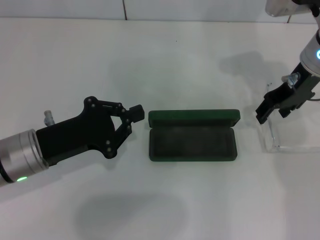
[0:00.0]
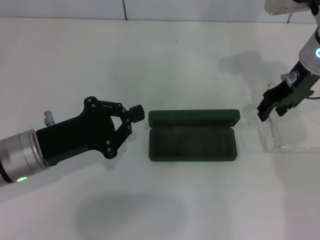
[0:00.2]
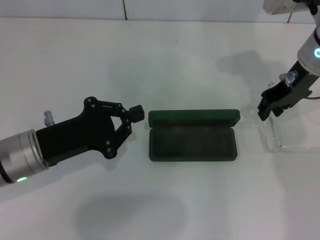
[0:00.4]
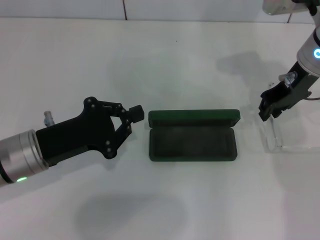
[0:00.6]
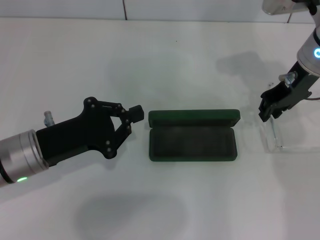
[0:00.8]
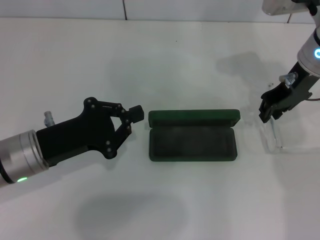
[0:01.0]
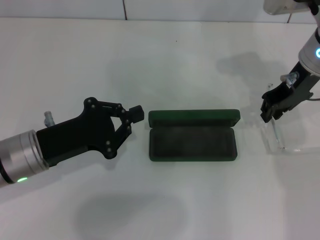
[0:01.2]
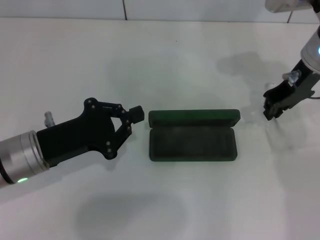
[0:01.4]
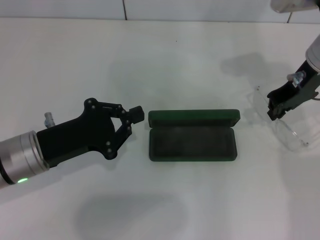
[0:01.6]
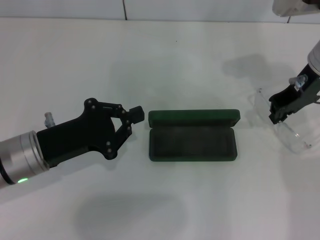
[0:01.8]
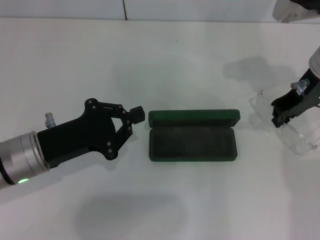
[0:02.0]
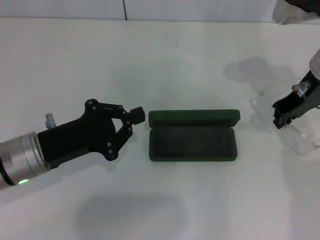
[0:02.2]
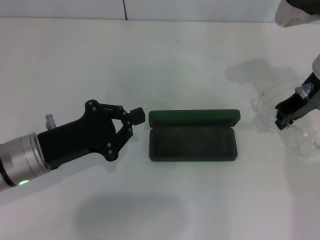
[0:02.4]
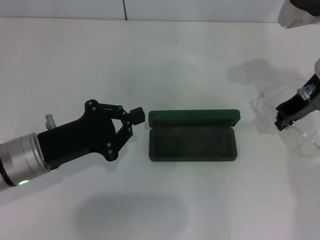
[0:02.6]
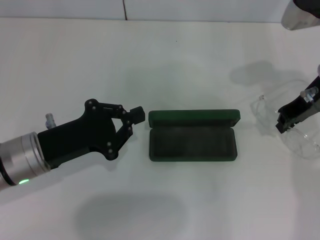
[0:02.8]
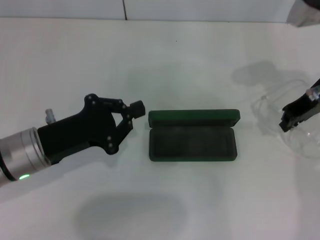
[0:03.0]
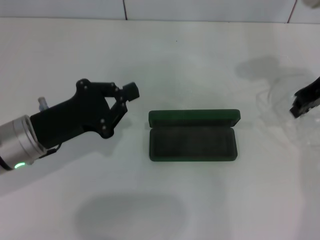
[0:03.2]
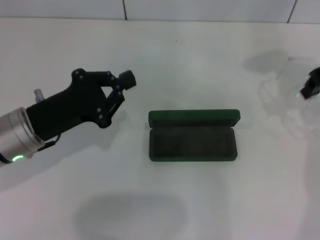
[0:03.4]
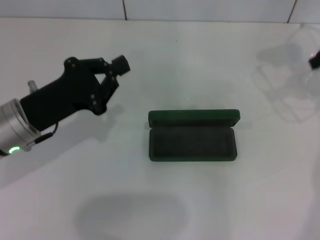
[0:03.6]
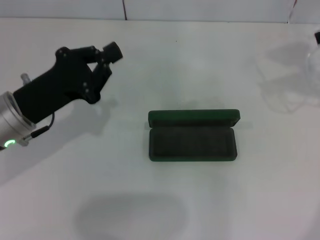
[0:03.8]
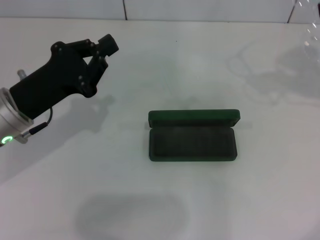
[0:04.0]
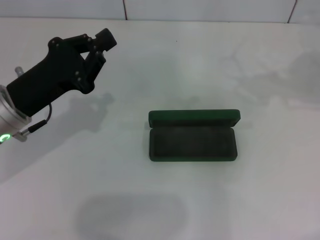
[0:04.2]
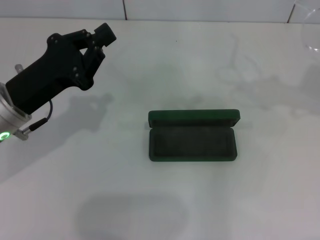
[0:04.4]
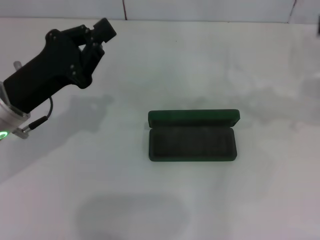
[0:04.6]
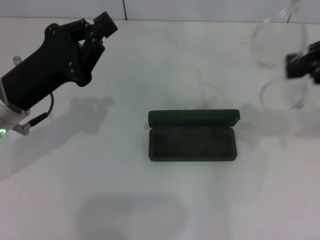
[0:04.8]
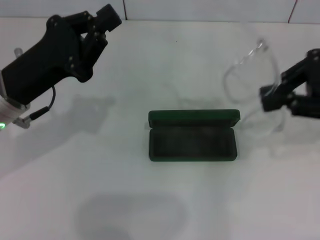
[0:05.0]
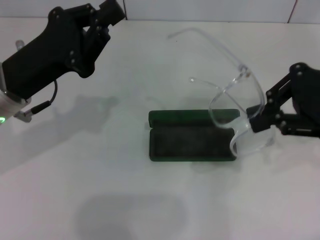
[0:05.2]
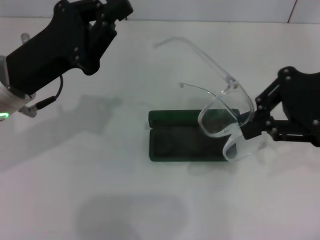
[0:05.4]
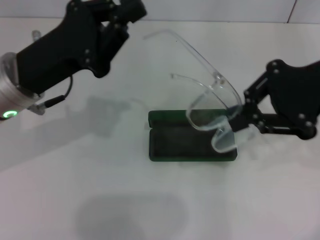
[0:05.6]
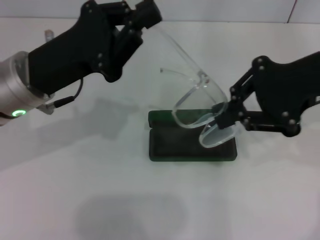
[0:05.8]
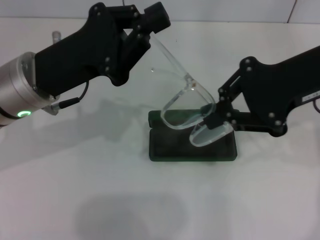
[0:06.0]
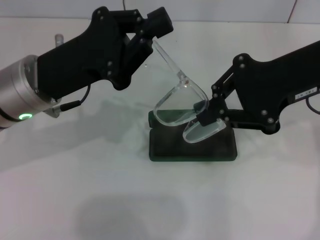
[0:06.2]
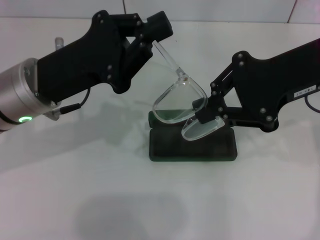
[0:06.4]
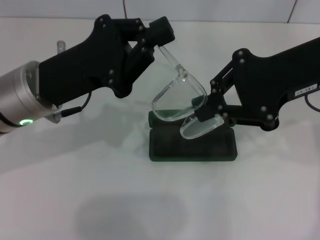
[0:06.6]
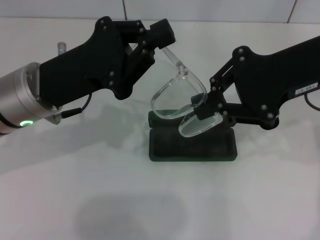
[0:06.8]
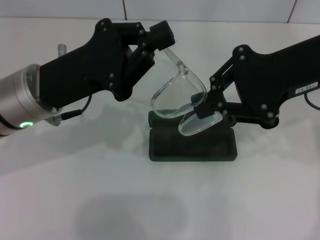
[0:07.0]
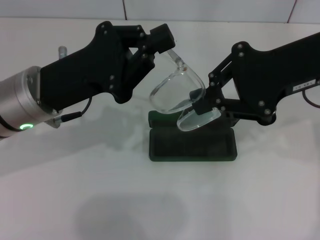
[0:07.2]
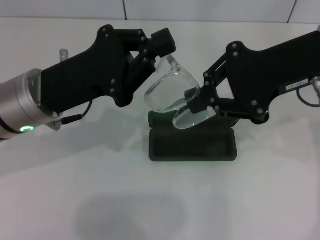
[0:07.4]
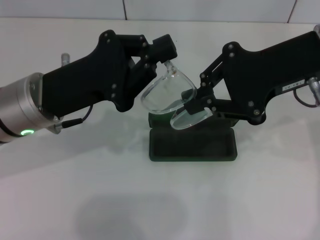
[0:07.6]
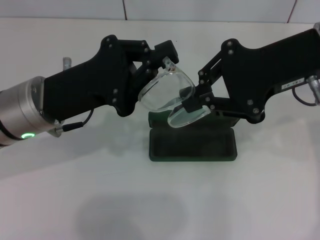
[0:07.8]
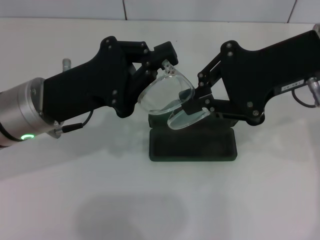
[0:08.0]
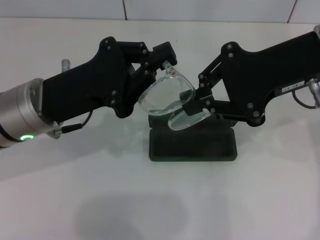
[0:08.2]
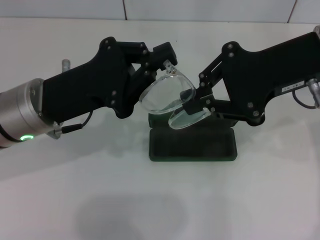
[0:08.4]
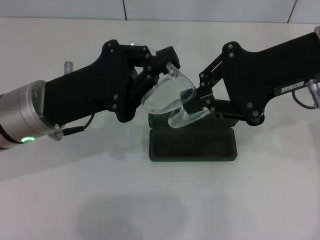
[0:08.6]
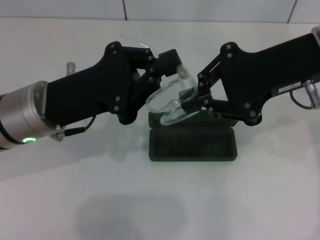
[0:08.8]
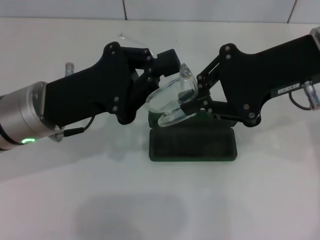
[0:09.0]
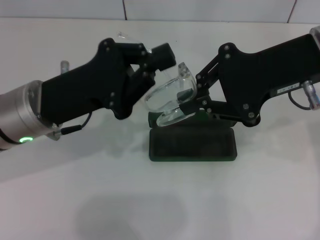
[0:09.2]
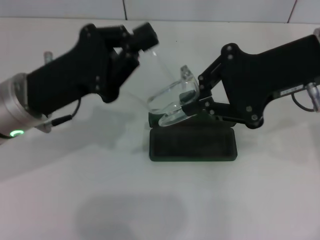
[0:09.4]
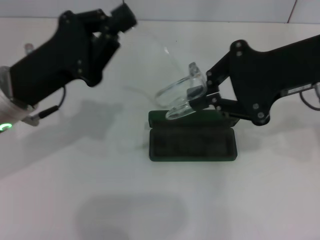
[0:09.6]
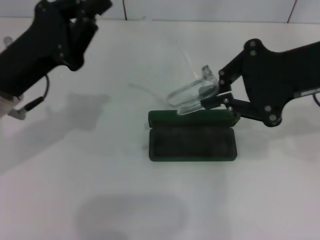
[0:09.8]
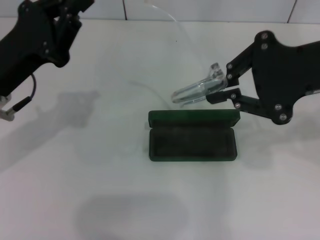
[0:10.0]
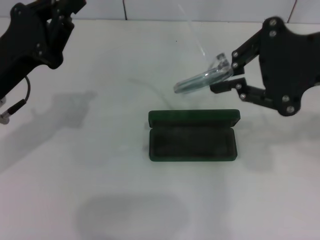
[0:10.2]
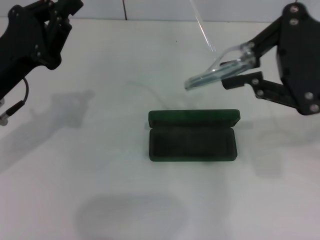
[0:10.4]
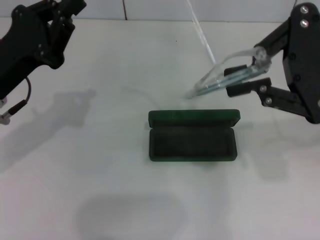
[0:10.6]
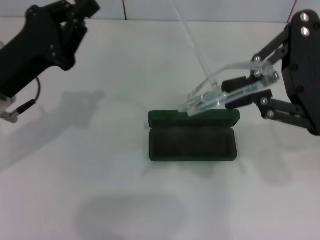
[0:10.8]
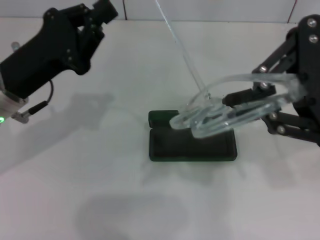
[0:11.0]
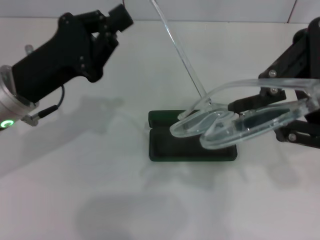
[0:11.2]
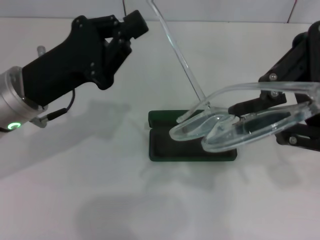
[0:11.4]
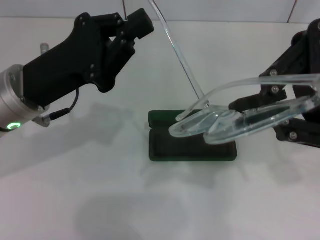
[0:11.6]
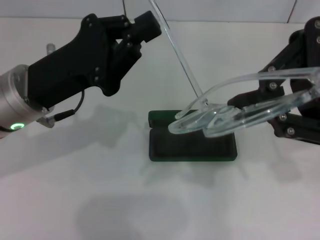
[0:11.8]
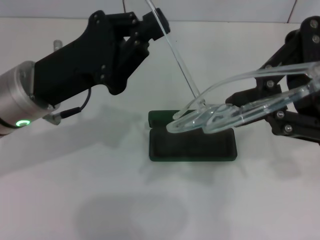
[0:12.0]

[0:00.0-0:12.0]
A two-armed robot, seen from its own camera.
0:00.0 to 0:01.6: The right gripper closes up.
0:01.6 to 0:03.0: The grippers stay close to where they were, moving slightly.
0:03.0 to 0:04.4: The right gripper is displaced to the right, upward and backward by about 15 cm.
0:04.4 to 0:06.0: The right gripper is displaced to the left by approximately 15 cm. The left gripper changes place by about 5 cm.
0:07.6 to 0:09.0: Neither gripper changes place.
0:09.0 to 0:10.4: The left gripper is displaced to the left by approximately 5 cm, while the right gripper heads upward and backward, covering some 5 cm.
0:10.4 to 0:12.0: The left gripper is displaced to the right by approximately 5 cm.

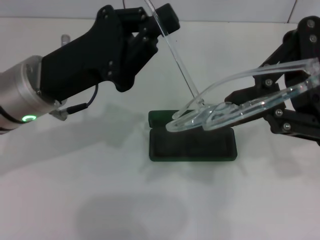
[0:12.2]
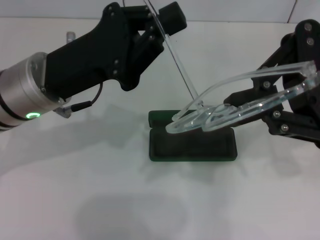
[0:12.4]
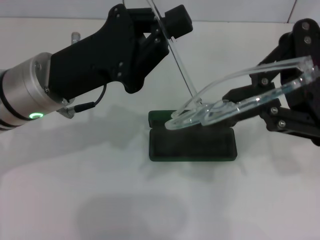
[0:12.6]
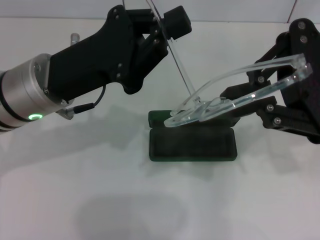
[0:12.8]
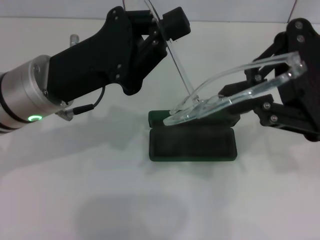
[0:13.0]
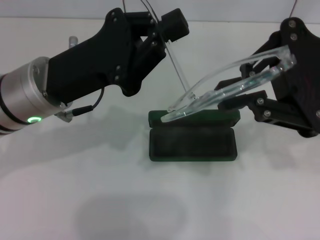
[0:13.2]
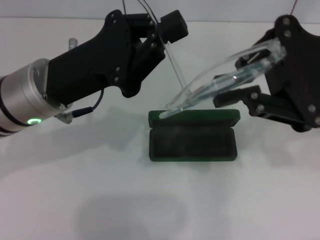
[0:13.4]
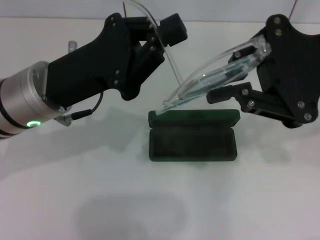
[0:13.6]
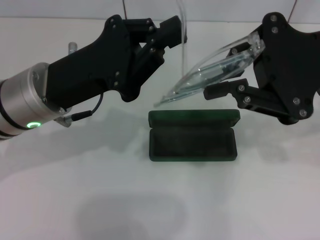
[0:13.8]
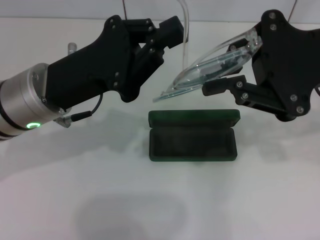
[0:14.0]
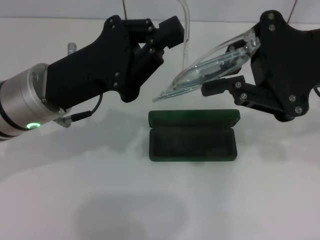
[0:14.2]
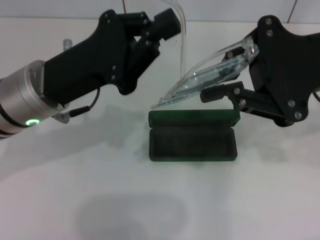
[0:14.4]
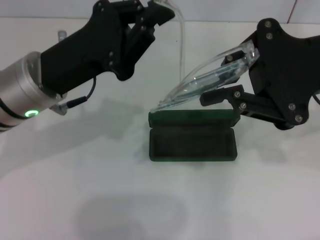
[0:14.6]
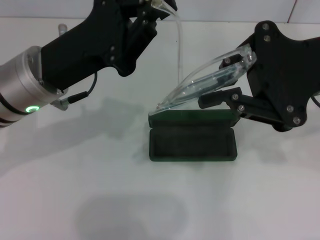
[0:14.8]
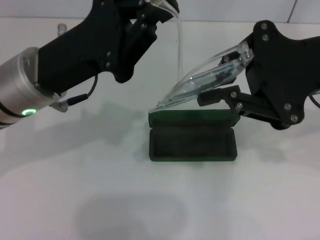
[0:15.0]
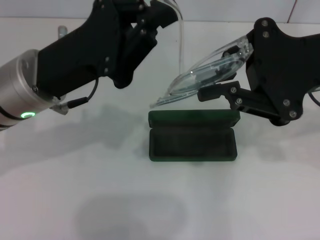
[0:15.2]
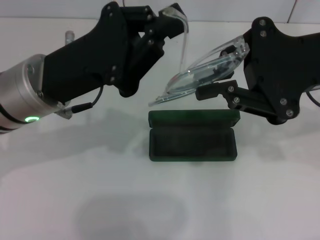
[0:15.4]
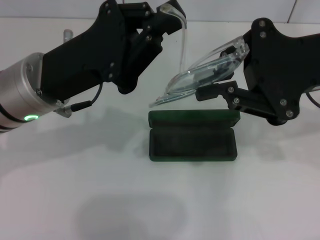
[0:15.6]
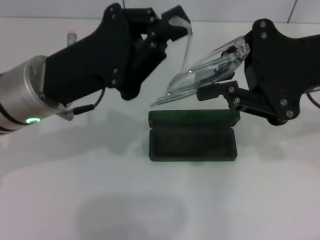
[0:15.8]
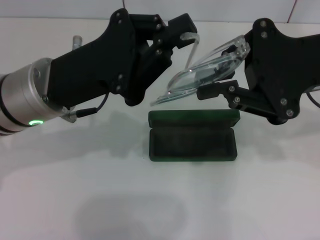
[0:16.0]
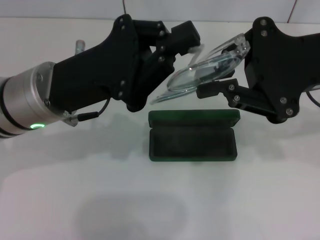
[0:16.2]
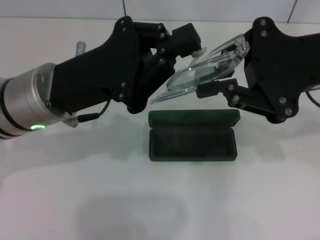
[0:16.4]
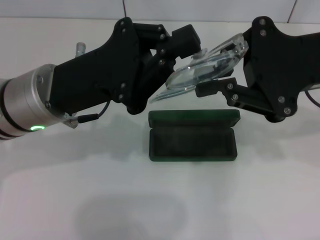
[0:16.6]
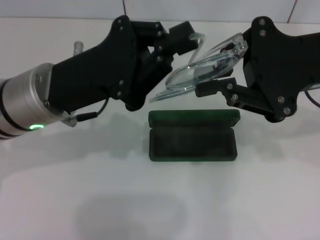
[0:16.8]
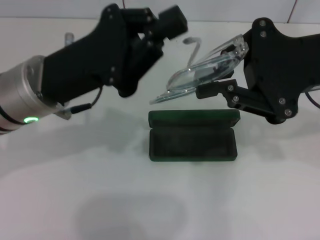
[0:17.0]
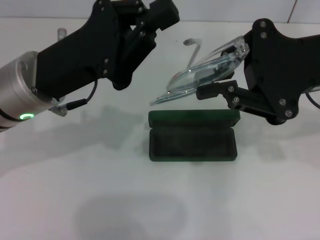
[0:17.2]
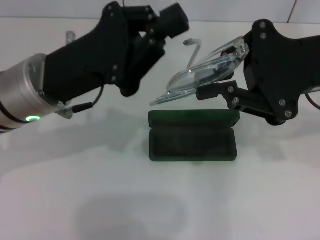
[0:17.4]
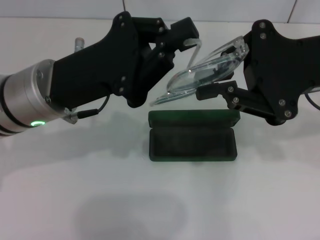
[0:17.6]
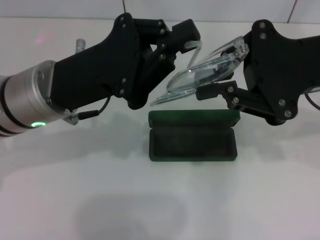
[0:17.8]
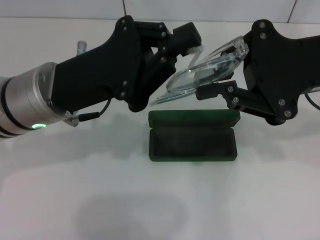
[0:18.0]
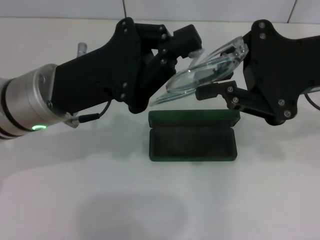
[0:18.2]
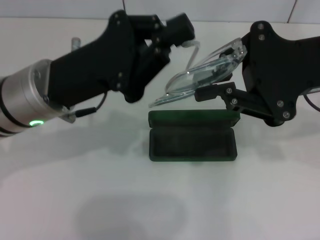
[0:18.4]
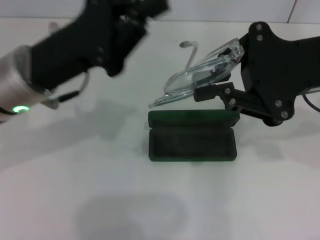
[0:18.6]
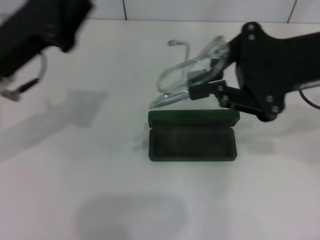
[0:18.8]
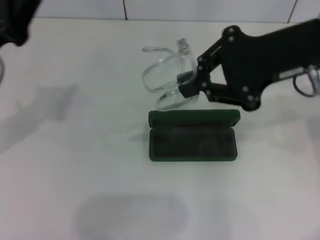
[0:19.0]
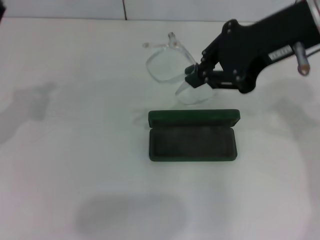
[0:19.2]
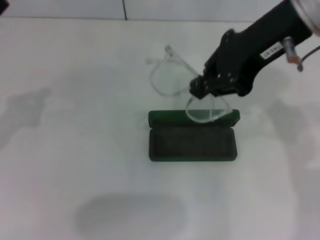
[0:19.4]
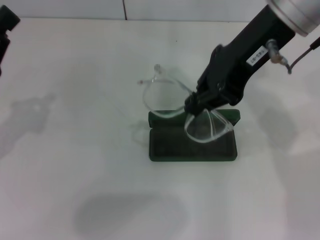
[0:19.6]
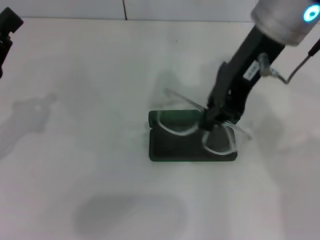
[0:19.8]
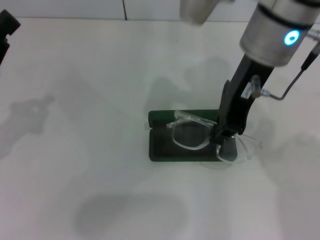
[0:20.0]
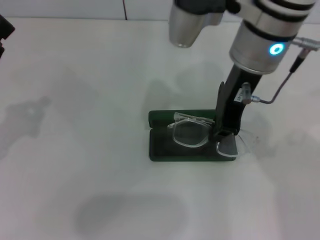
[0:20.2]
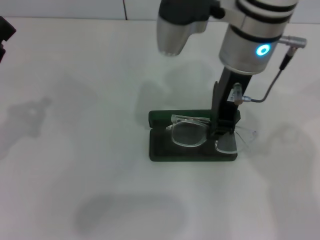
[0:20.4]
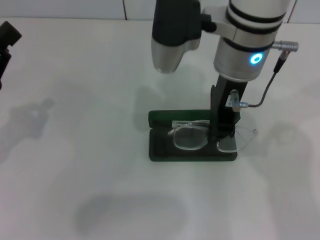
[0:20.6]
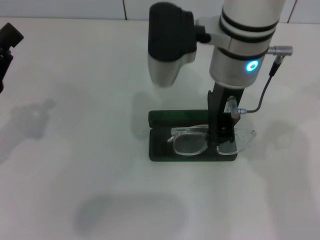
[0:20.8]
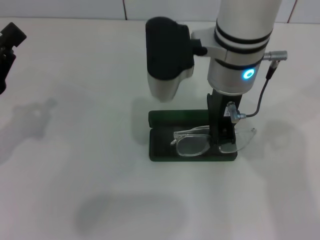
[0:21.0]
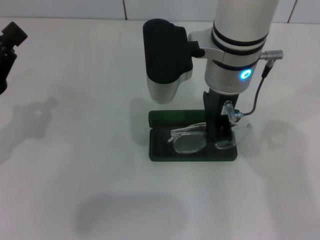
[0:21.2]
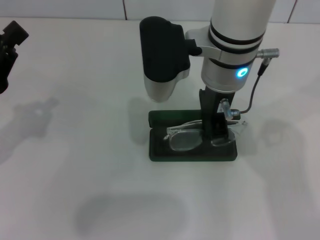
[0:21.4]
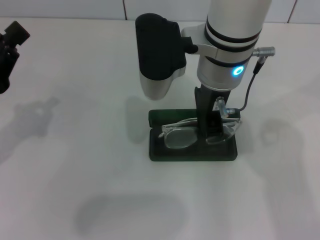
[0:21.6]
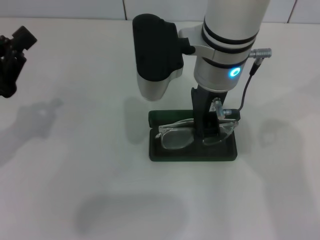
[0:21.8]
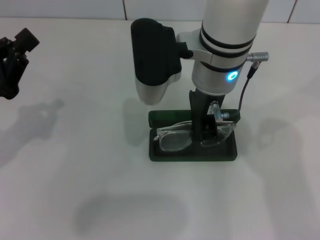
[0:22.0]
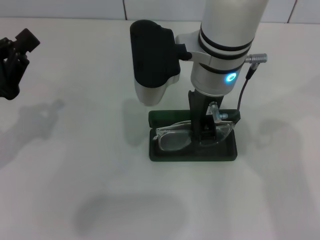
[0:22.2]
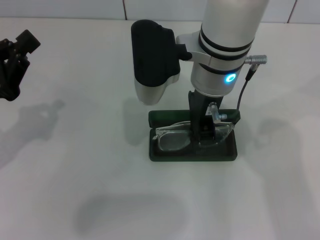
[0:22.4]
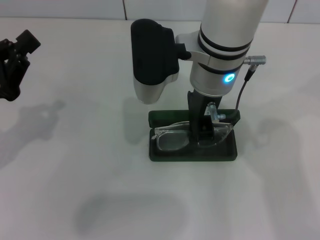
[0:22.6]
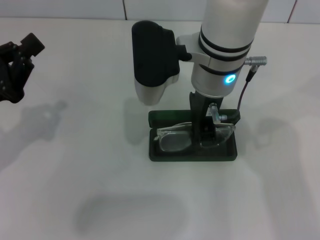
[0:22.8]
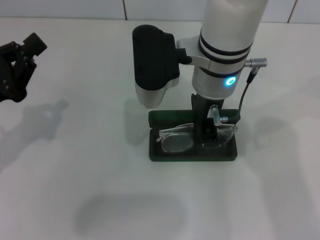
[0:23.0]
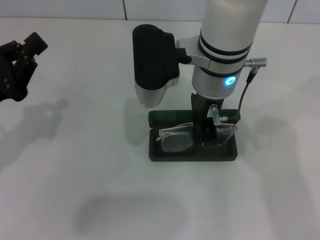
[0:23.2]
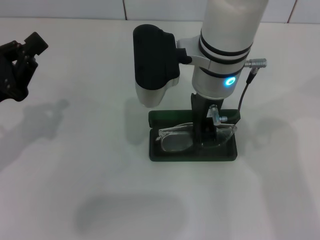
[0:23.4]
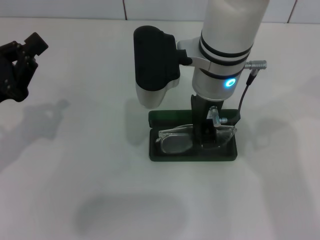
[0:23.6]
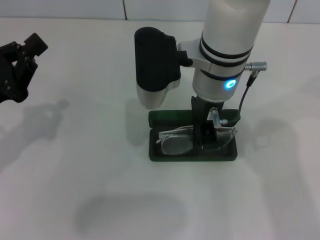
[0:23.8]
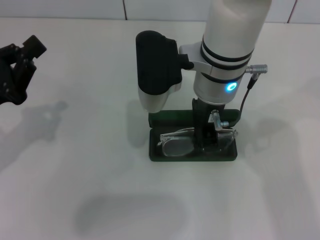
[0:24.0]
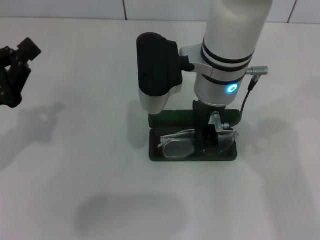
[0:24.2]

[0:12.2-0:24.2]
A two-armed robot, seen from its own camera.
Step, 0:12.2 to 0:18.2: Fold the frame with your left hand.
0:13.8 to 0:15.2: The grippers move only a little.
0:16.6 to 0:18.2: The grippers stay close to where they were, moving slightly.
0:18.2 to 0:19.8: The left gripper moves to the left, approximately 15 cm. The right gripper travels to the left and upward by approximately 10 cm.
0:19.8 to 0:21.2: The right gripper heads downward and to the left, covering approximately 10 cm.
0:21.2 to 0:24.2: There are only small adjustments of the grippers.
